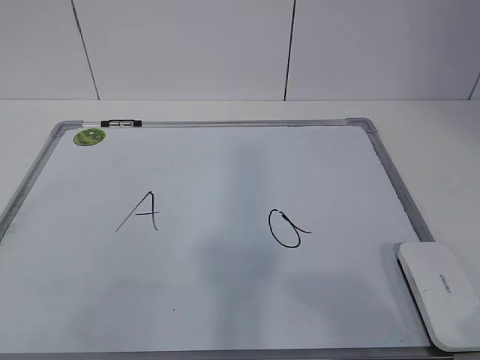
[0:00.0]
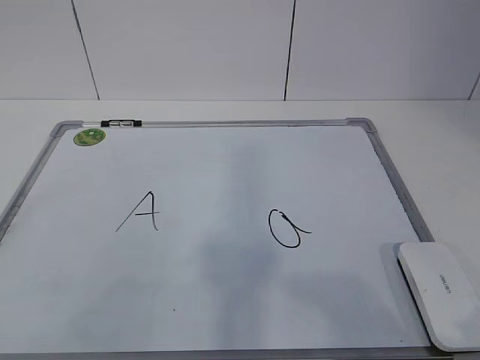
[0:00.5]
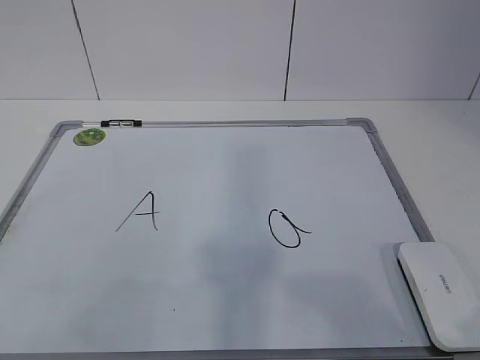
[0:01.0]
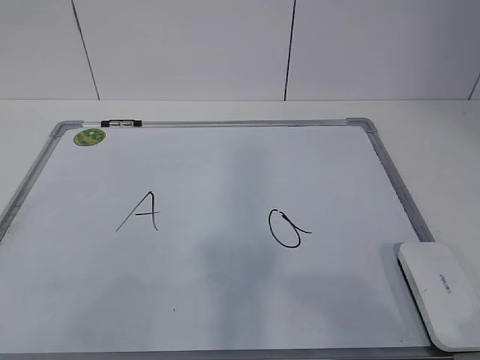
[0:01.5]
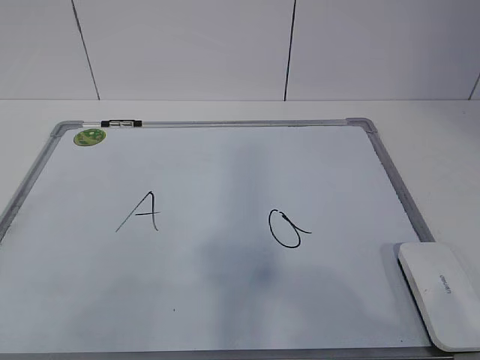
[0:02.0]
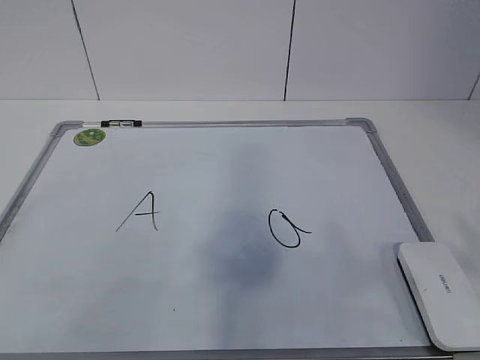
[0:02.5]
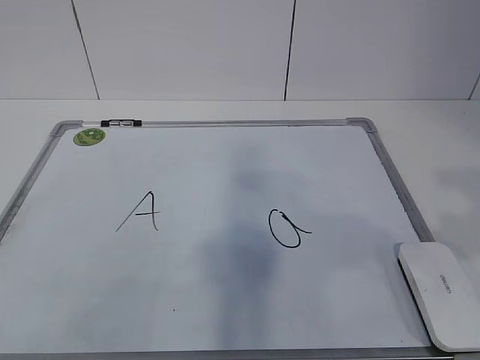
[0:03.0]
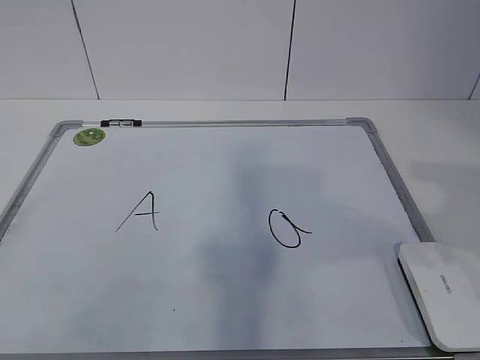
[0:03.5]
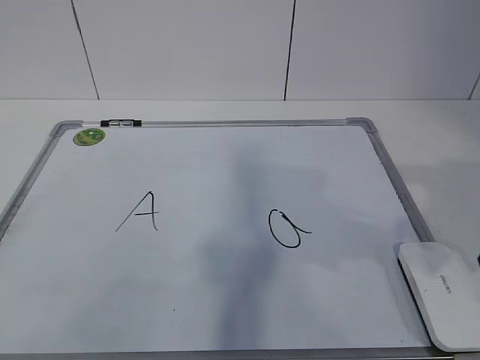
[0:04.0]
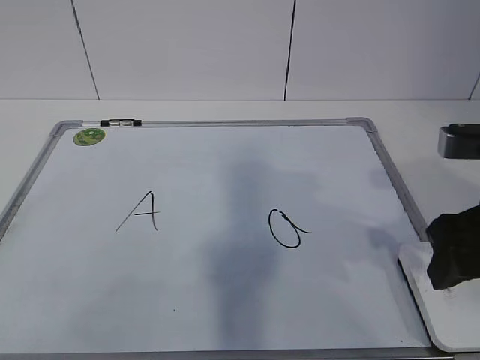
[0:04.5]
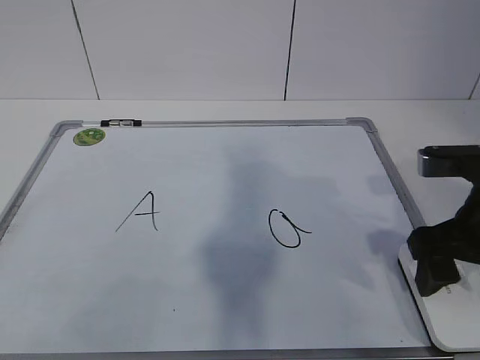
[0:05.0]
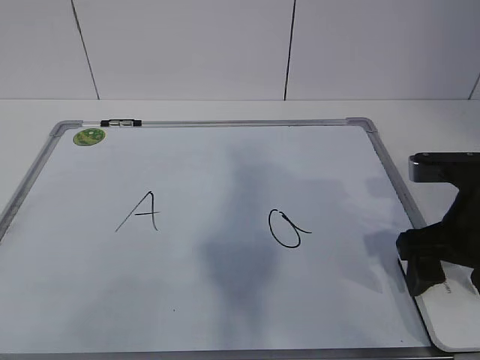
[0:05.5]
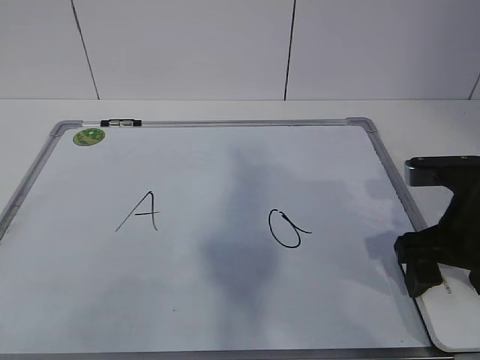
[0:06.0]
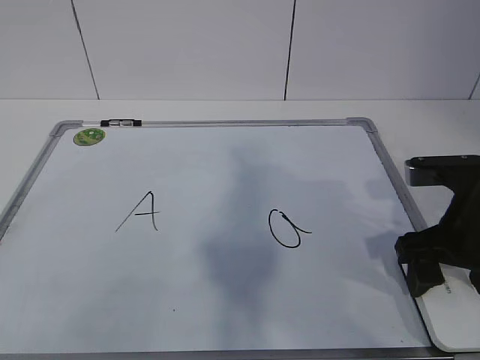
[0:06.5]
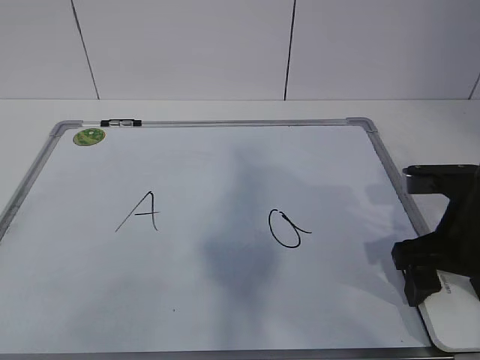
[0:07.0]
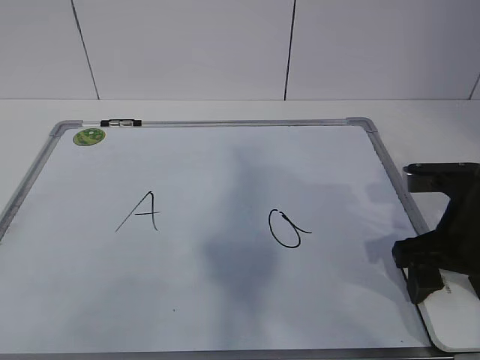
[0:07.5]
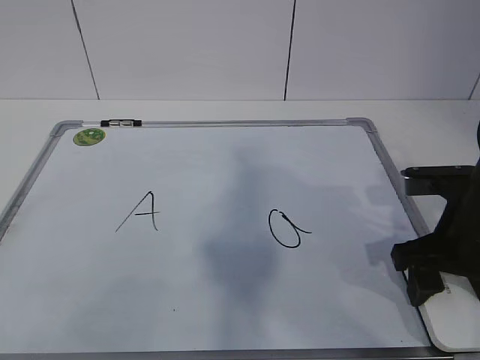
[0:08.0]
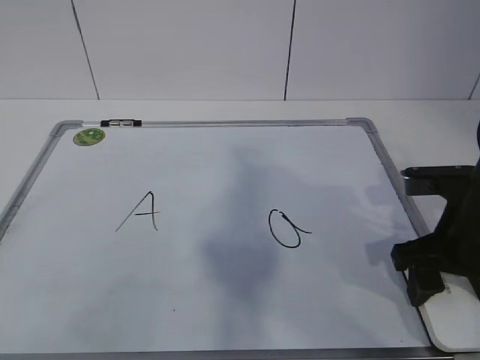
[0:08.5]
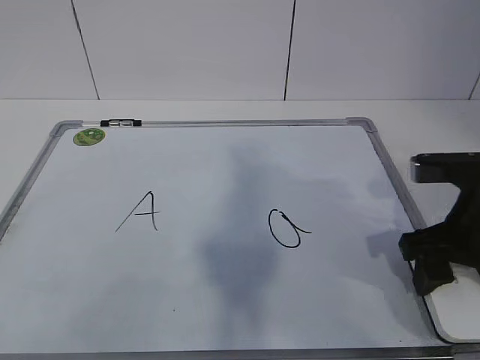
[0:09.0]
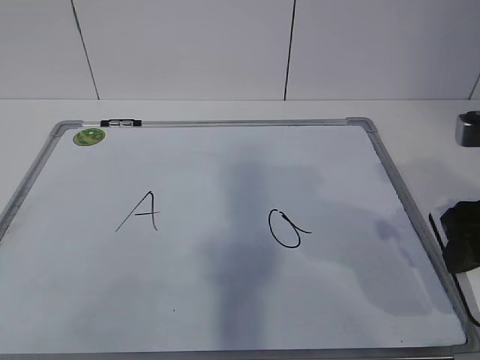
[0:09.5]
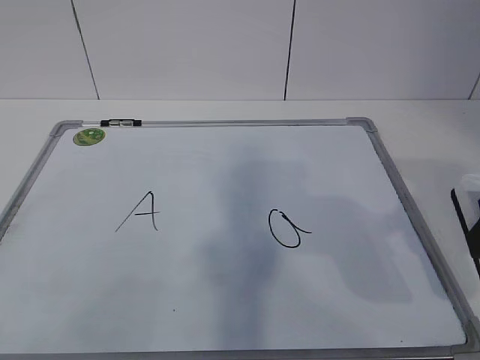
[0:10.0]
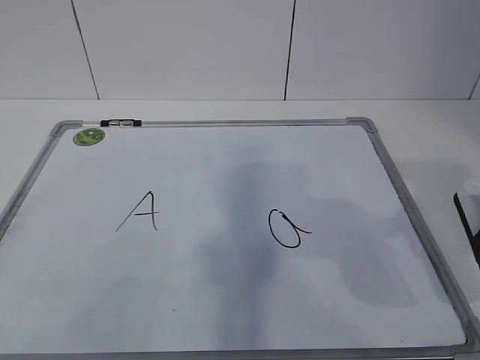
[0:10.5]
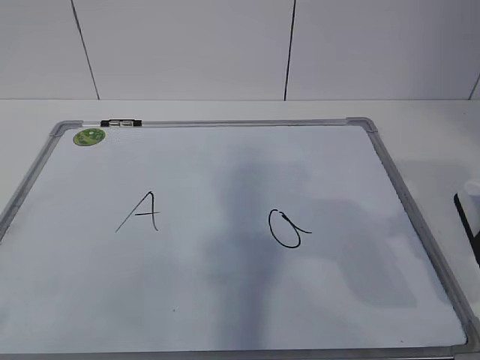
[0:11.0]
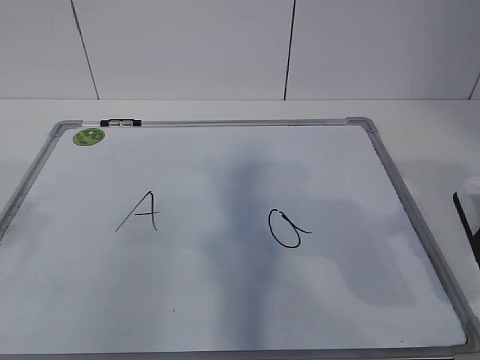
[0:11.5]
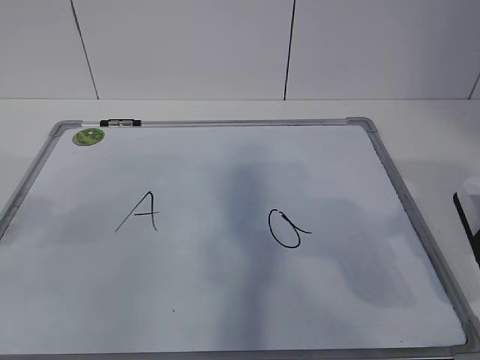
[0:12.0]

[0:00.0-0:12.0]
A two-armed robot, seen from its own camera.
Task of the whole recording: pick up the eraser on the blackboard and erase the letter "a".
Step, 0:00.0 to 0:07.0: Grab the eraser with your right hand.
Step, 0:07.5 to 0:11.5: Hold the drawing board steady with your left hand.
0:04.0 to 0:06.0: The right gripper goes roughly 10 cm downward and forward, and opens.
0:06.0 to 0:08.0: The right gripper closes up.
0:08.0 to 0:10.0: The right gripper travels upward and backward by approximately 15 cm.

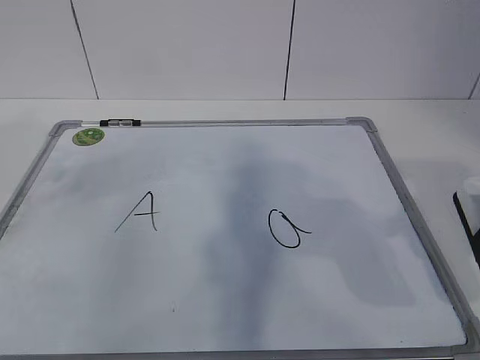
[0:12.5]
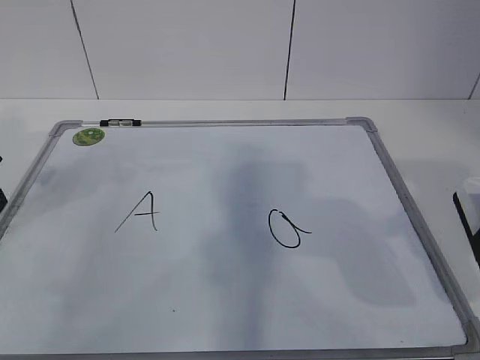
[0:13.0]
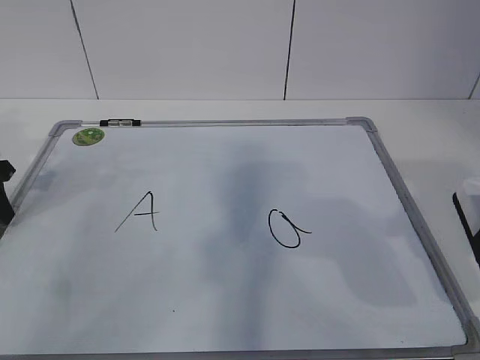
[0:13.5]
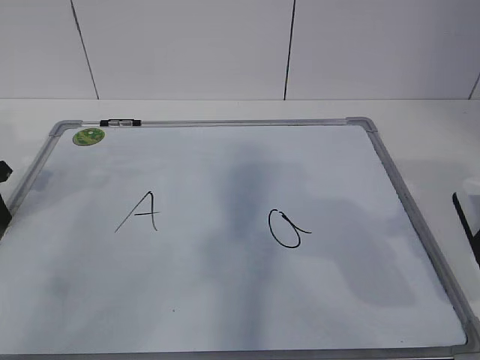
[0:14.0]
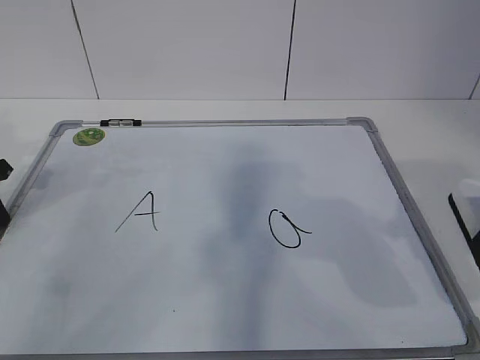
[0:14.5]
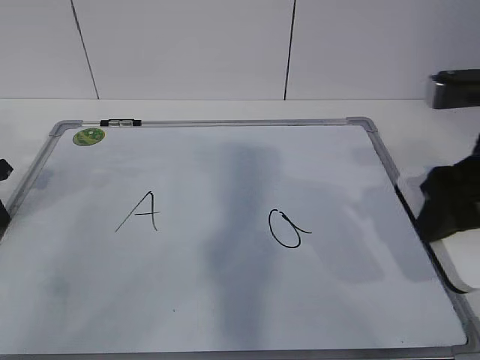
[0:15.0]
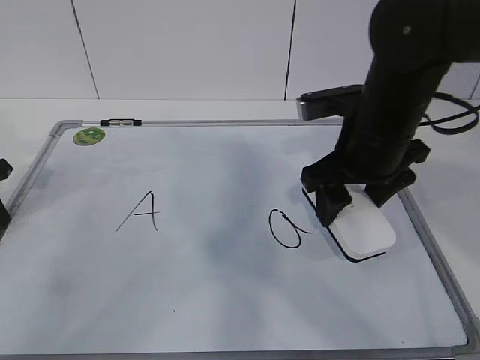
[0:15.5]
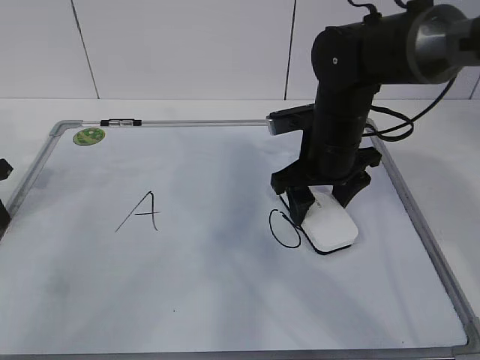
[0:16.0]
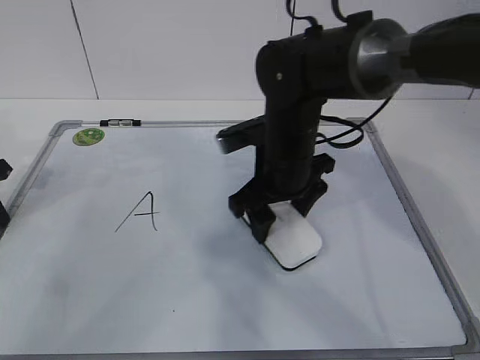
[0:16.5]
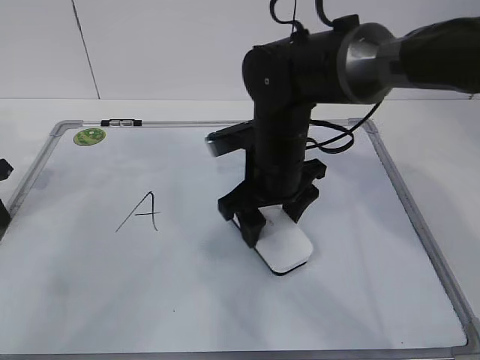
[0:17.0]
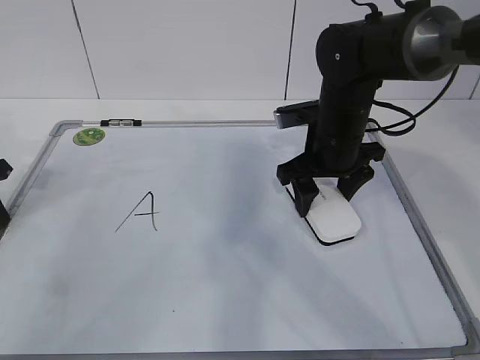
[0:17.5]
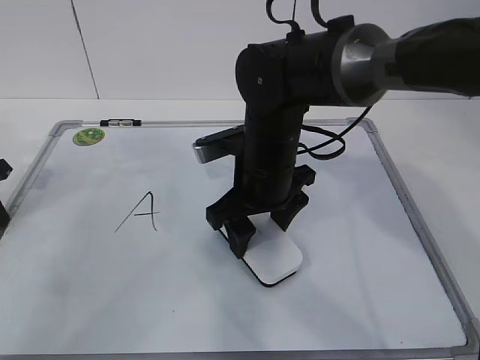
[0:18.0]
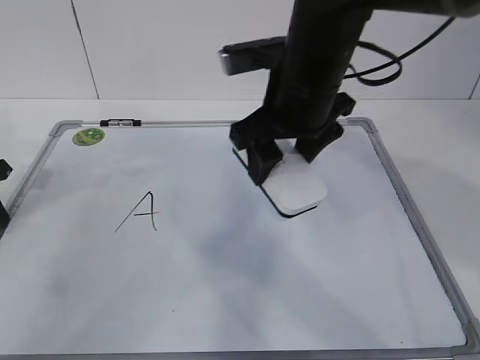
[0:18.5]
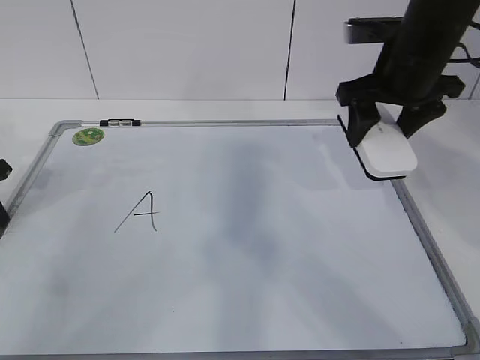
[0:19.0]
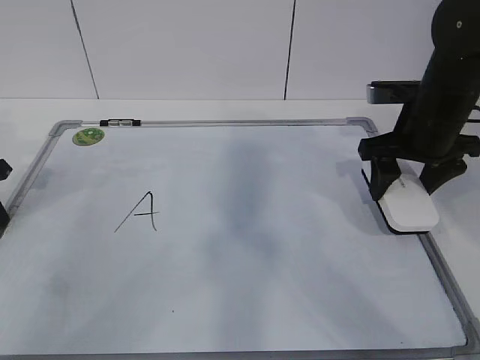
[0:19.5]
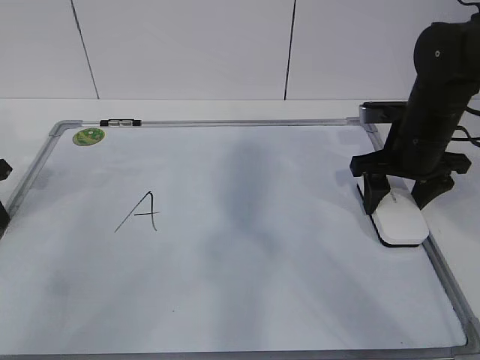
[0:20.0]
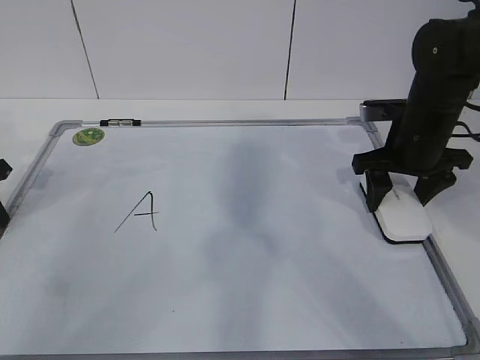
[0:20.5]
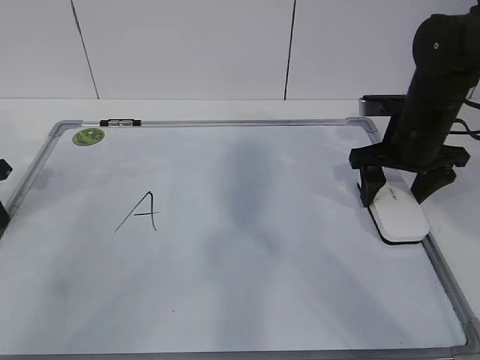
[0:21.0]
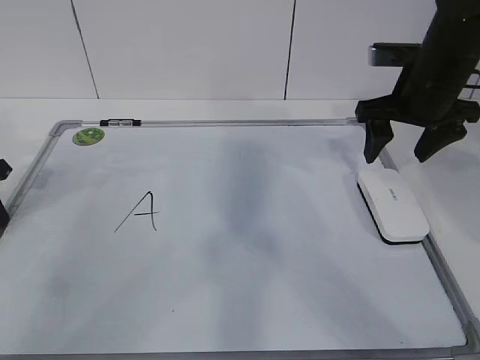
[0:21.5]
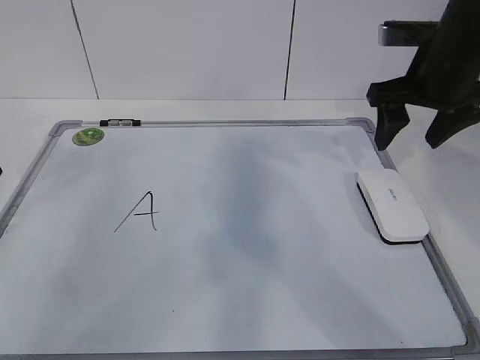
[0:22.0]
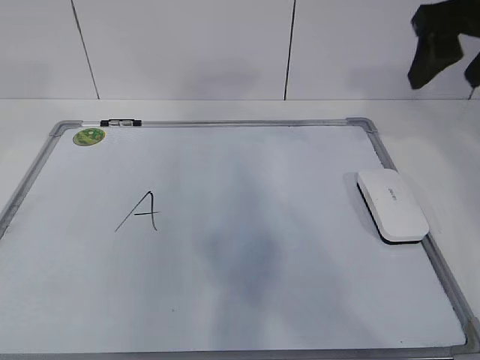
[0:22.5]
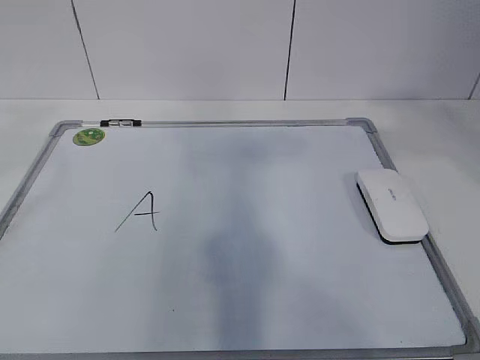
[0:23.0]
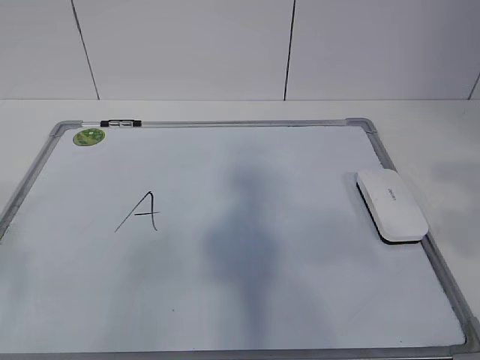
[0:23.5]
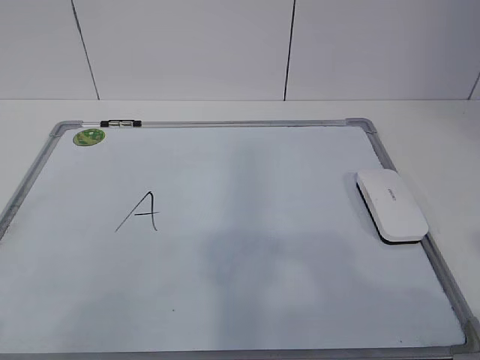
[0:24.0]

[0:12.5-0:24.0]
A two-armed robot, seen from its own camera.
Task of the whole recording: pick up the eraser on the blackboard and erase the letter "a".
Step, 0:15.5 to 0:17.0: Put down the eraser with your right hand.
0:12.5 to 0:14.5: The left gripper moves downward, approximately 10 cm, and closes up.
0:14.5 to 0:16.5: The right gripper is displaced to the left, forward and downward by roughly 30 cm.
0:16.5 to 0:18.5: The right gripper goes some 10 cm upward.
0:18.5 to 0:20.0: The right gripper travels to the right and downward by roughly 15 cm.
0:20.0 to 0:22.0: Both grippers travel together upward, approximately 10 cm. The right gripper opens. The left gripper opens its fingers.
0:22.0 to 0:24.0: The two grippers go approximately 35 cm backward.

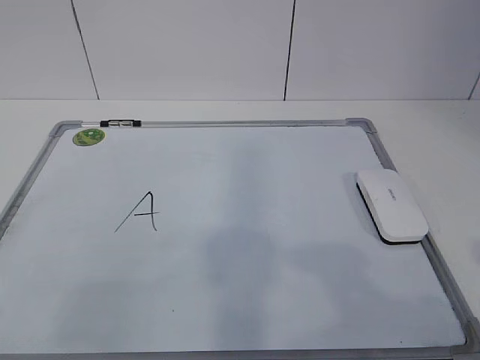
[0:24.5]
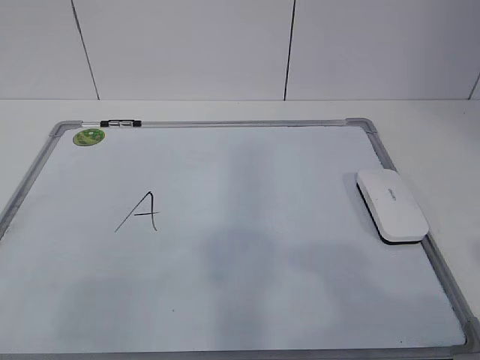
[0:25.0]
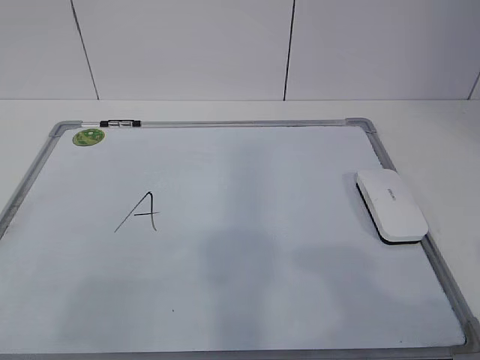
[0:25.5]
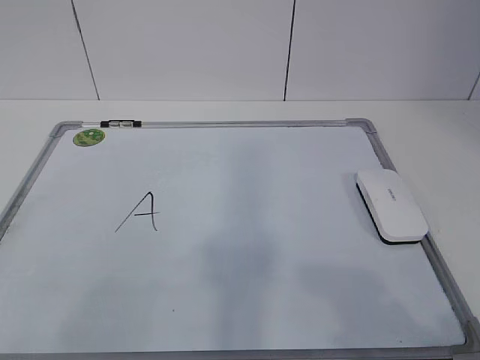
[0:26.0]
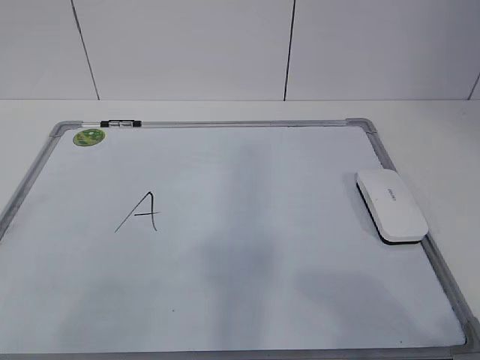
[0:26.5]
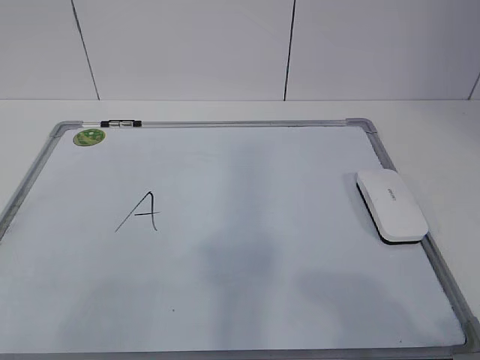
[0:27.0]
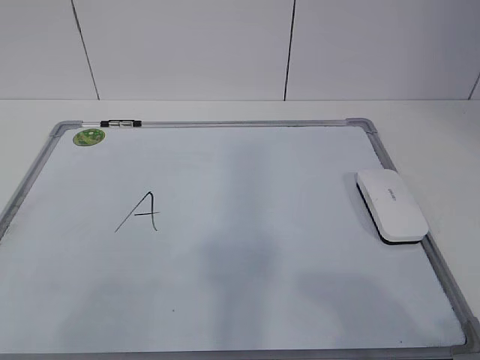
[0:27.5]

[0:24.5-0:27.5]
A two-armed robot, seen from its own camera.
Task of the whole recording: pick up the eraser on the blackboard and erase the letter "a".
0:26.0 to 0:27.5: Both grippers stay about where they are.
